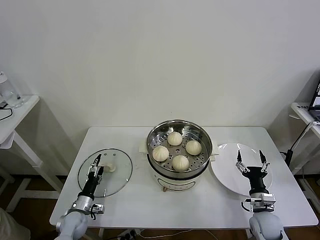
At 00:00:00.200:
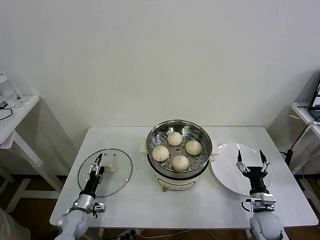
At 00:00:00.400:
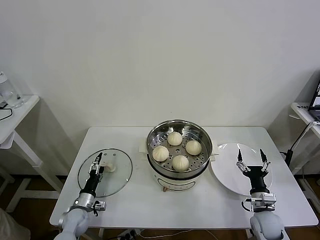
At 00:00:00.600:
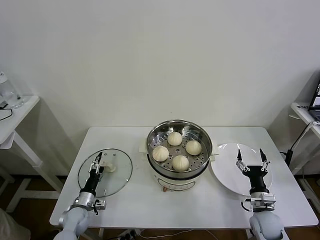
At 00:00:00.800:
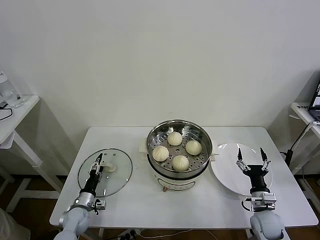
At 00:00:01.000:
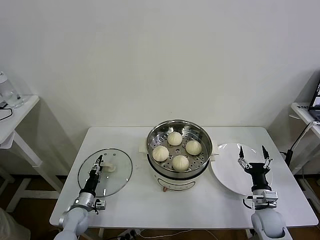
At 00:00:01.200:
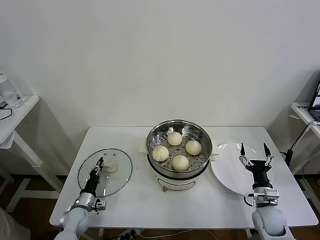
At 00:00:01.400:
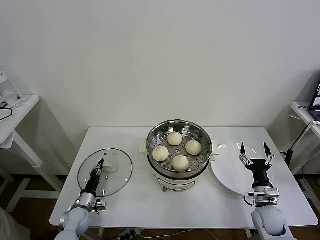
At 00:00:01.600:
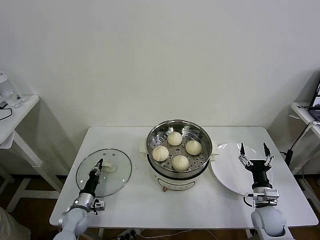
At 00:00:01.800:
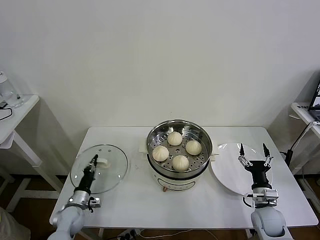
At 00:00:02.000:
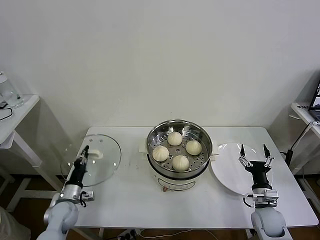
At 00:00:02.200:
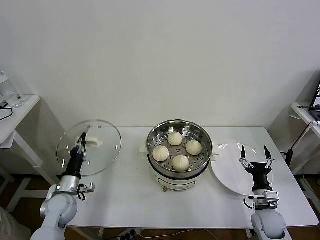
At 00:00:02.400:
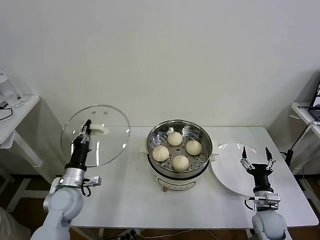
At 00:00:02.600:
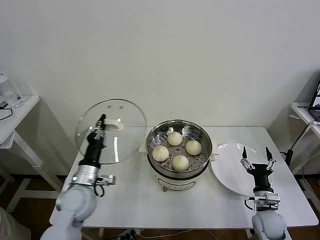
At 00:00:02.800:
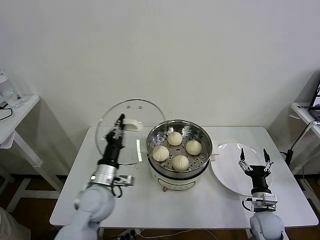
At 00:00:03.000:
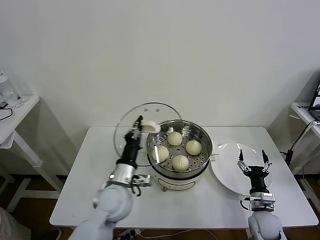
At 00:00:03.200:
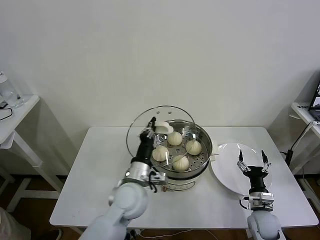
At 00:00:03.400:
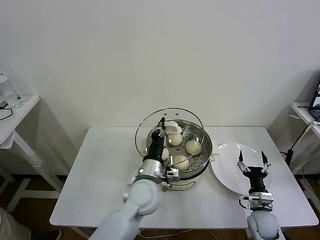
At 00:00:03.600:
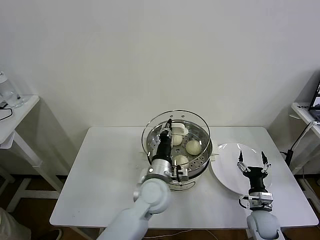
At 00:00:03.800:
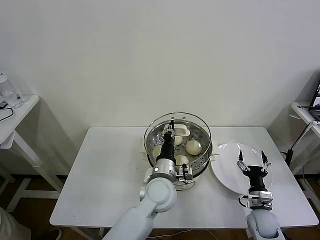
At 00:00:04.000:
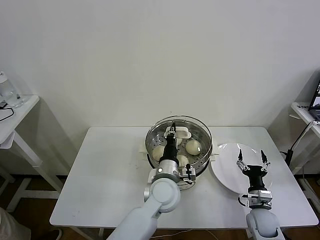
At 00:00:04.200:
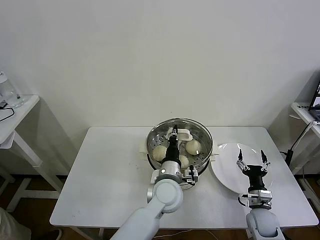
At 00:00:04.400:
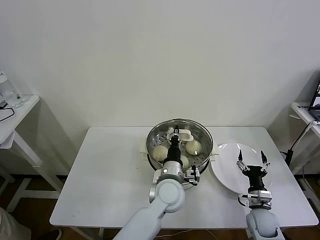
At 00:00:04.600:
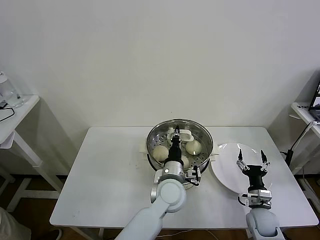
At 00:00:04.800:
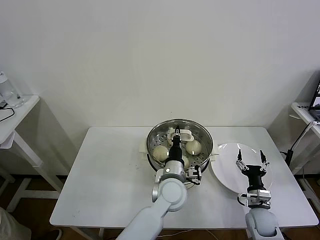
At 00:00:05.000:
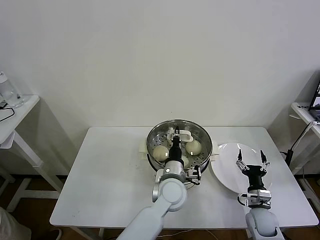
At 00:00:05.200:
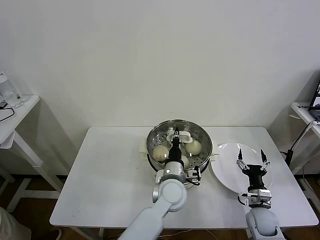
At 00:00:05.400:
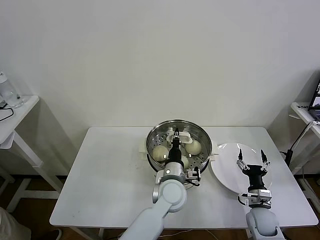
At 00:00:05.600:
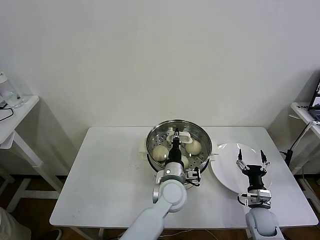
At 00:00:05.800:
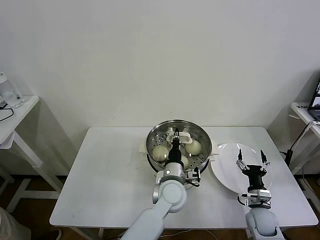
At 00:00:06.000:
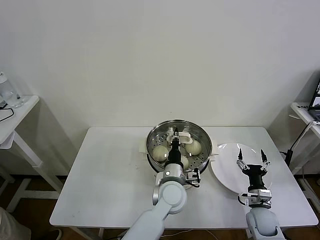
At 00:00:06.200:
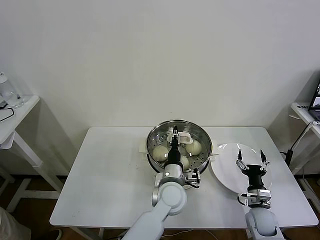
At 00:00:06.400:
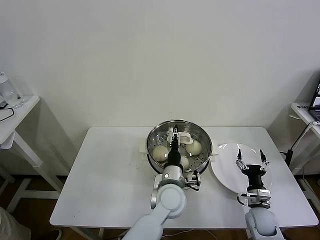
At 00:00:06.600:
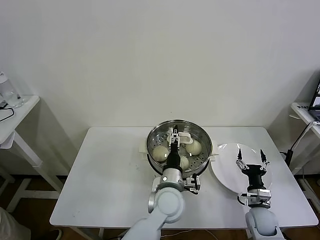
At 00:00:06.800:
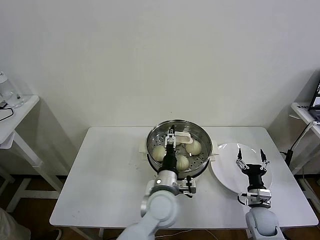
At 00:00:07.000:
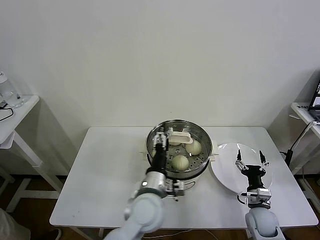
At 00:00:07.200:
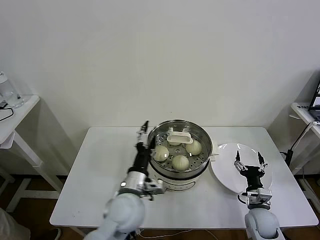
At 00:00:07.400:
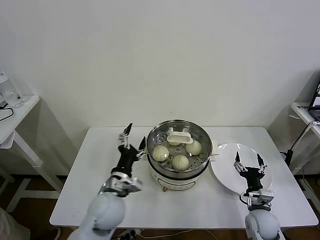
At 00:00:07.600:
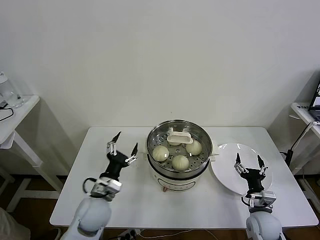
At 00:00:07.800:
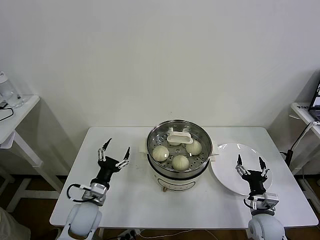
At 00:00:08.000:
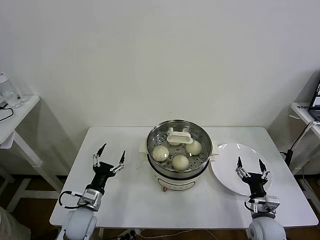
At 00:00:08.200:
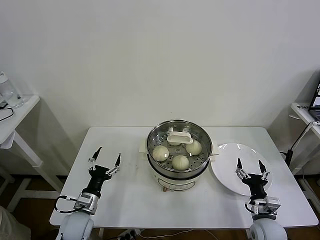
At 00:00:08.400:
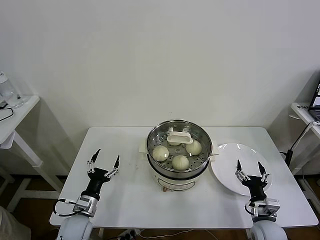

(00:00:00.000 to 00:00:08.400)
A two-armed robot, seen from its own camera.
Task of the whole recording: take steamed baozi put them in steamer then cover it.
Step, 00:00:01.600 - 00:00:06.400: Place the pot lid on the steamer with left gripper.
00:00:00.000 - 00:00:01.400: The left gripper closes.
00:00:01.400 - 00:00:02.800: The left gripper goes approximately 25 cm upward and to the right.
00:00:02.800 - 00:00:04.200: The left gripper is displaced to the right by roughly 20 cm.
00:00:04.200 - 00:00:05.600: There are only small adjustments of the grippers.
00:00:05.600 - 00:00:07.000: The left gripper shifts about 10 cm backward and to the left, and opens up.
00:00:07.000 - 00:00:08.400: The right gripper changes place by roughly 5 cm; the left gripper goes about 30 cm to the left and downward.
